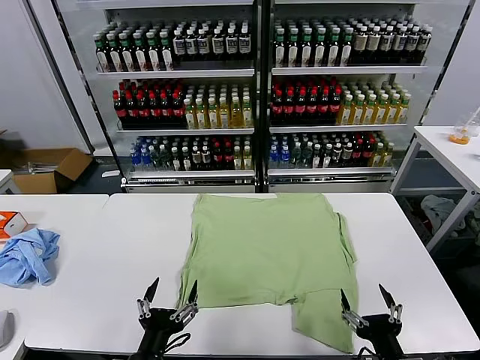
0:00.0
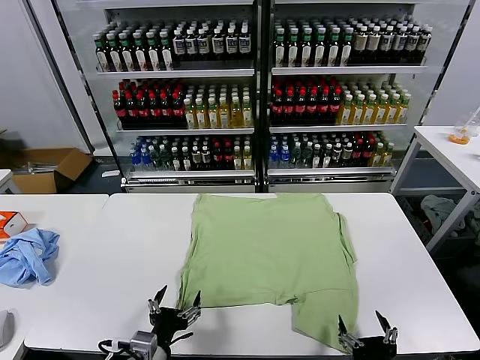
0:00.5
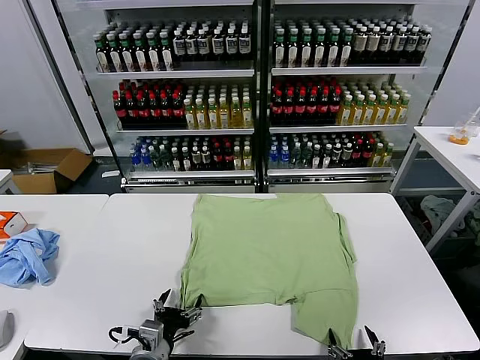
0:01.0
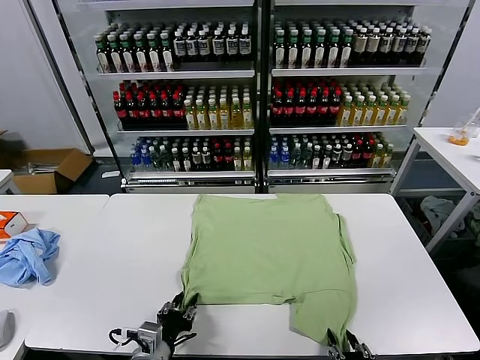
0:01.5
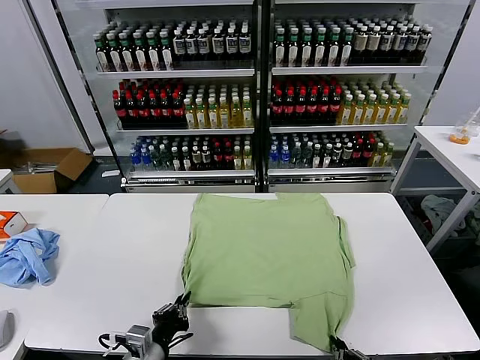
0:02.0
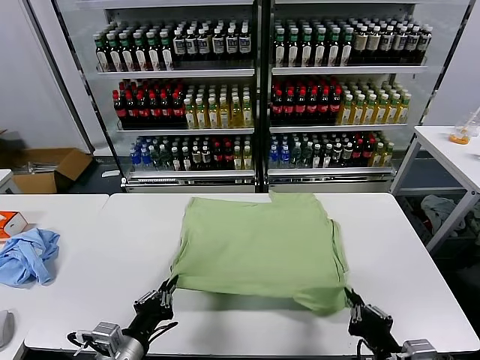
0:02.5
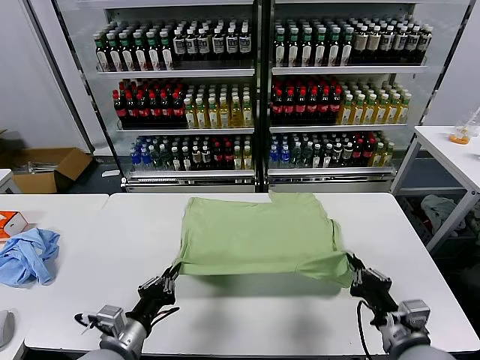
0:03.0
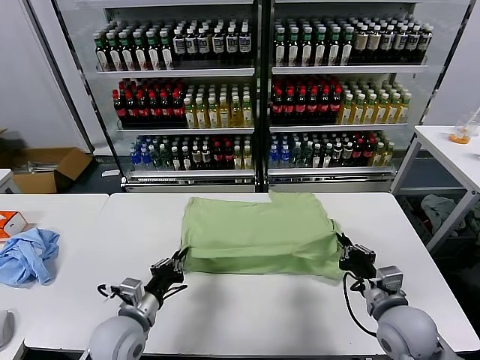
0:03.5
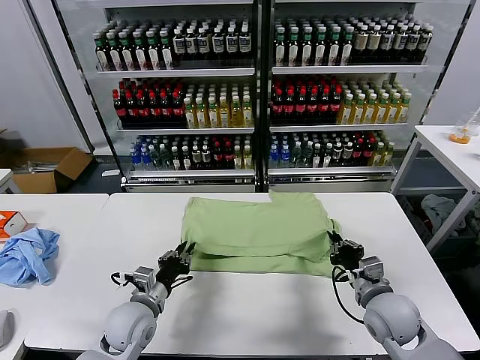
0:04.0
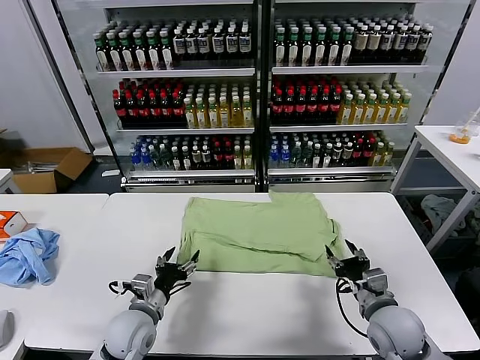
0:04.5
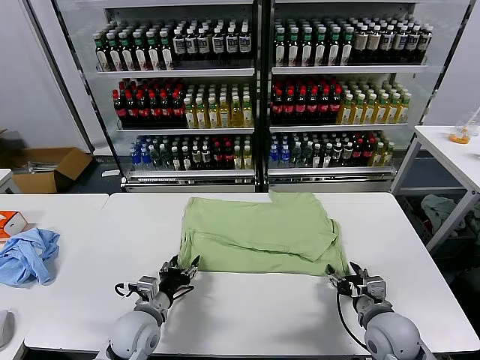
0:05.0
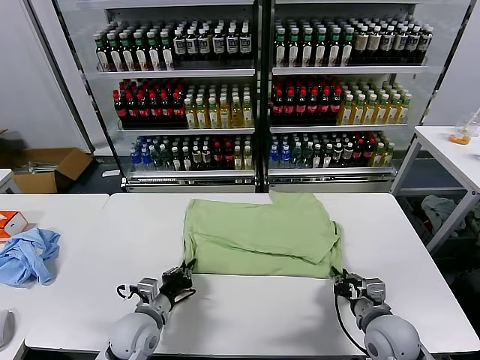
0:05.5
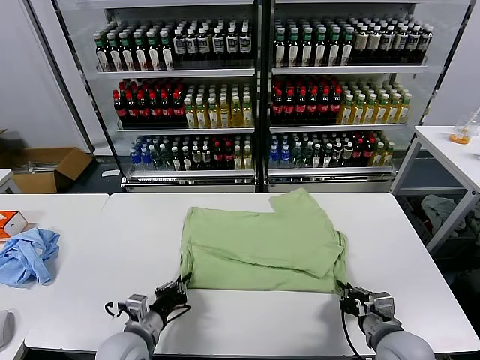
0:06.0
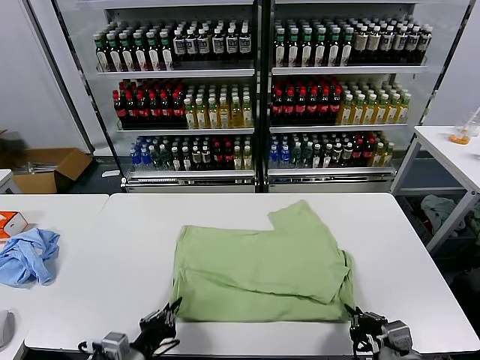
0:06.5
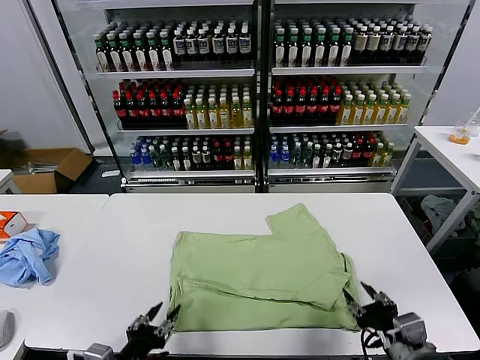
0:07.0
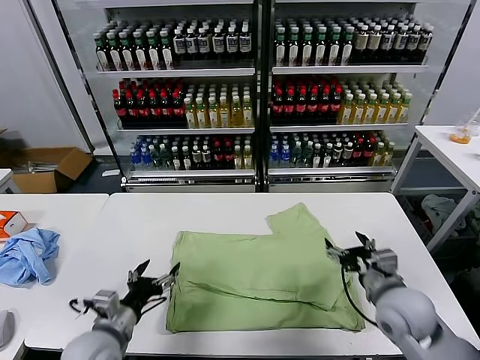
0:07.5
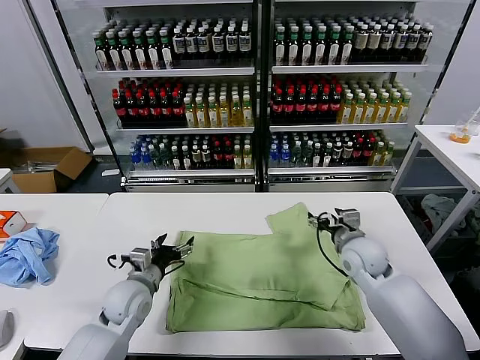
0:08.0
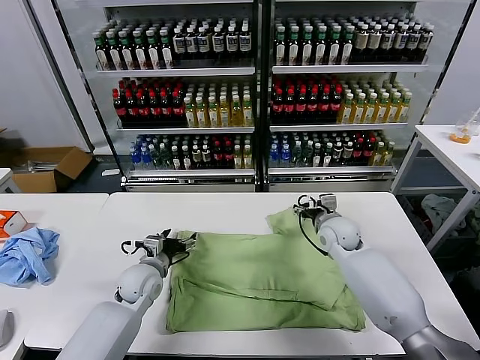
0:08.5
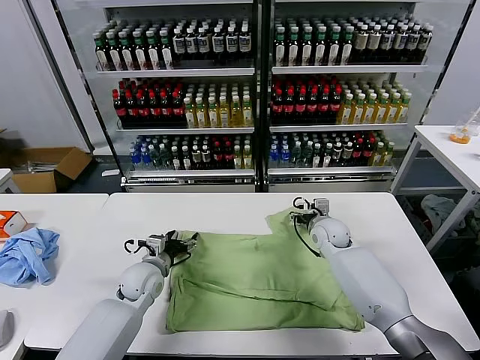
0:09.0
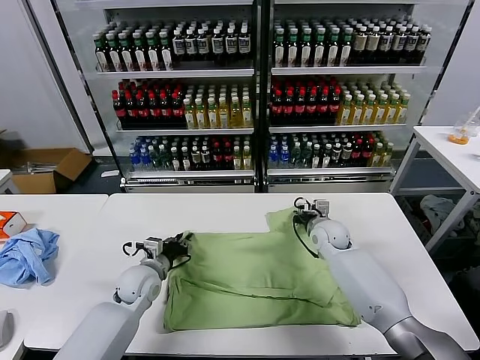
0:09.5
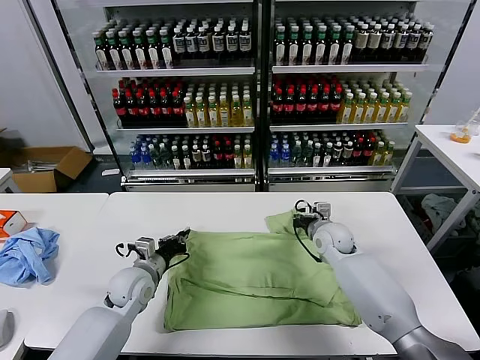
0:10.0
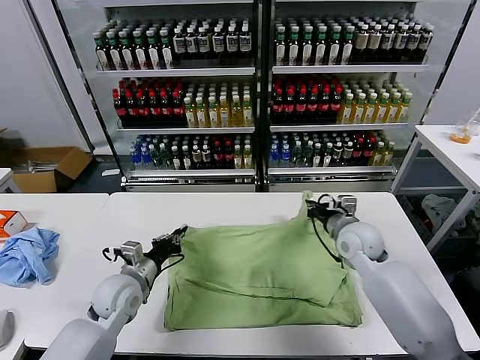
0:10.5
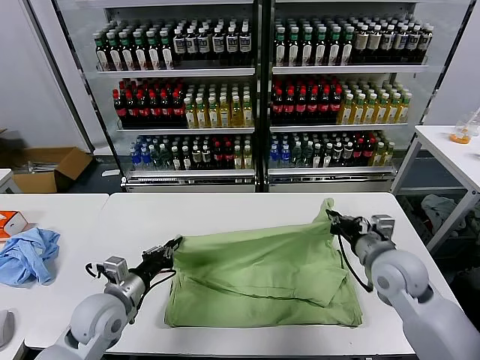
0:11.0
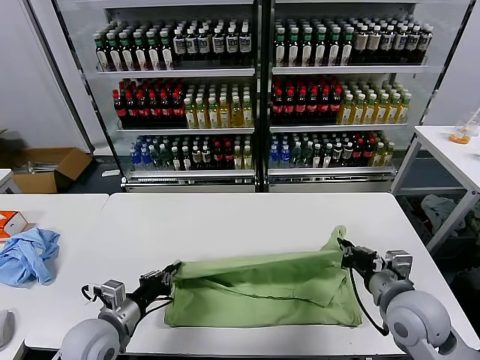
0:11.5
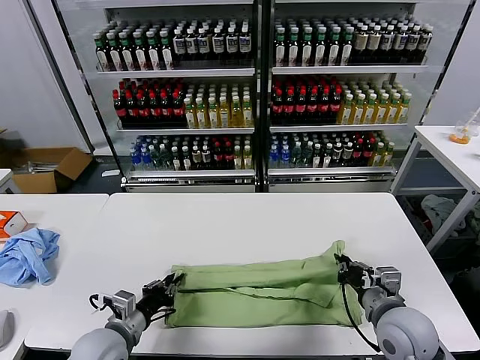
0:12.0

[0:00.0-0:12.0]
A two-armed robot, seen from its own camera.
Task of the whole recording: fold and organize the clothes.
Step, 0:00.0 to 0:01.5: use both grippers simultaneously to clamp the lower edge of the clothing fabric.
Step, 0:02.0 to 0:04.0: use both grippers to drag the lower edge of the fabric forward and fold it over the upper edge.
Step, 0:04.5 to 0:06.5: Drag the clothes downward with both gripper.
Step, 0:07.5 to 0:09.5: use both grippers simultaneously to clamp the upper edge of the clothing fabric.
0:02.0 to 0:04.0: The right gripper shifts approximately 20 cm forward. Meanwhile the left gripper is displaced forward by roughly 15 cm.
0:04.0 to 0:06.0: Both grippers travel together backward, approximately 5 cm. The left gripper opens and closes again. Meanwhile the right gripper opens, then closes once more.
0:06.0 to 0:08.0: The right gripper heads forward, covering roughly 20 cm, and opens its fingers. Meanwhile the left gripper shifts roughly 10 cm forward, and opens.
0:08.0 to 0:10.0: The left gripper closes its fingers. The right gripper goes approximately 10 cm forward, and closes up.
0:10.0 to 0:12.0: The right gripper heads backward, covering approximately 25 cm. Meanwhile the left gripper heads backward, covering approximately 15 cm.

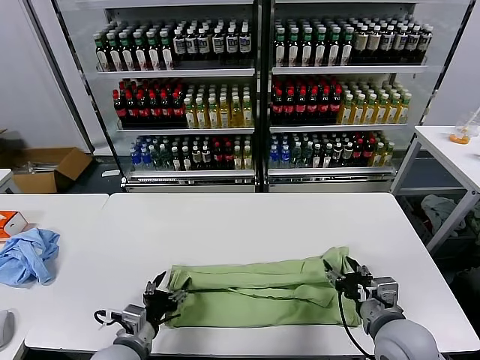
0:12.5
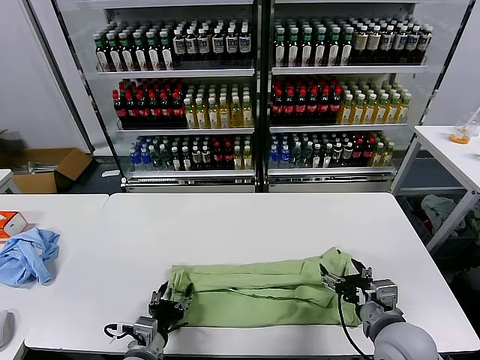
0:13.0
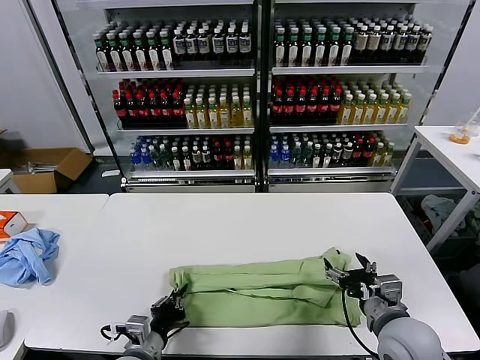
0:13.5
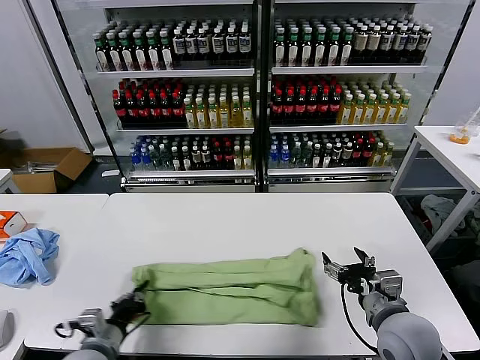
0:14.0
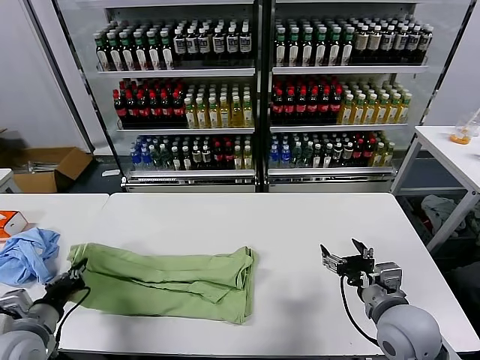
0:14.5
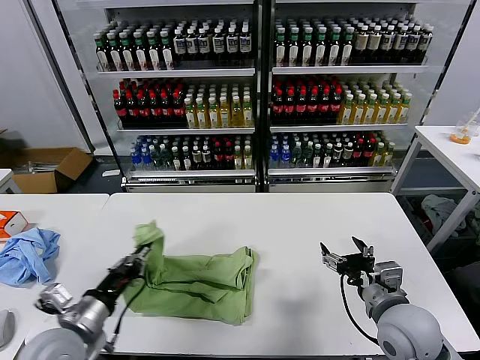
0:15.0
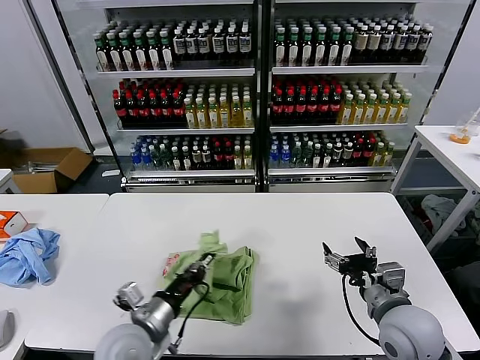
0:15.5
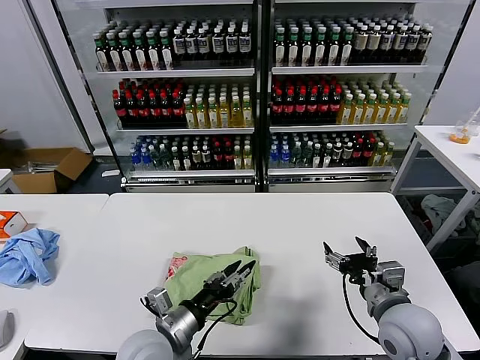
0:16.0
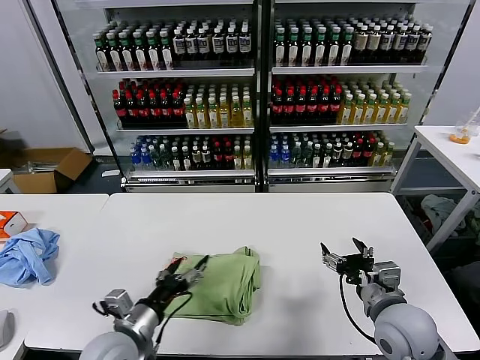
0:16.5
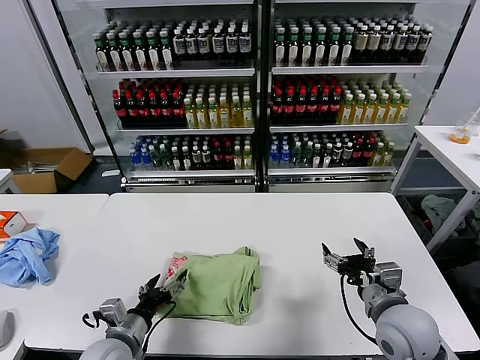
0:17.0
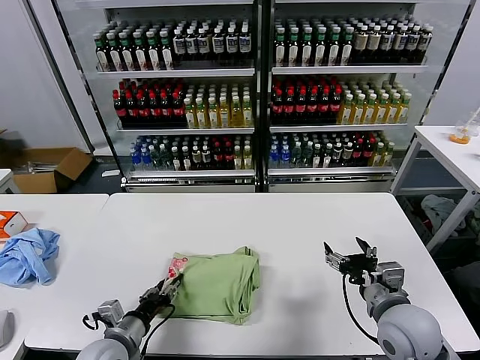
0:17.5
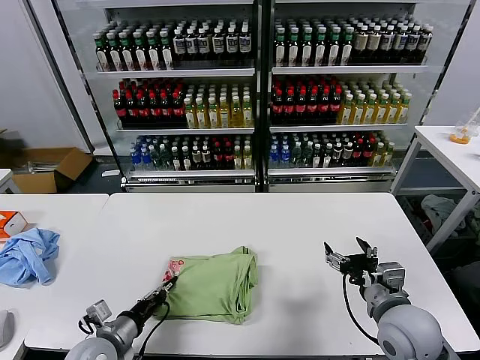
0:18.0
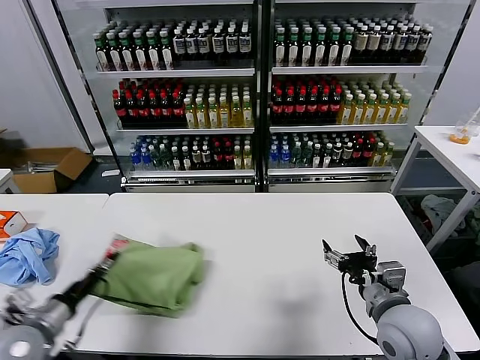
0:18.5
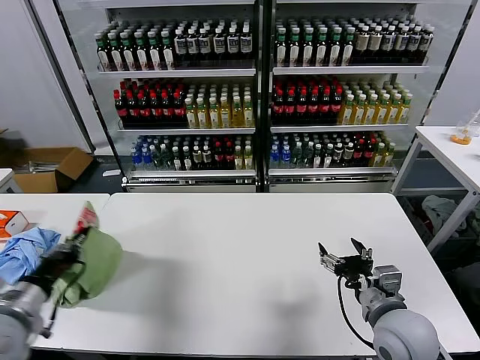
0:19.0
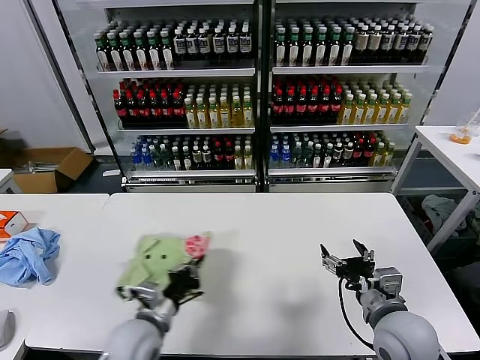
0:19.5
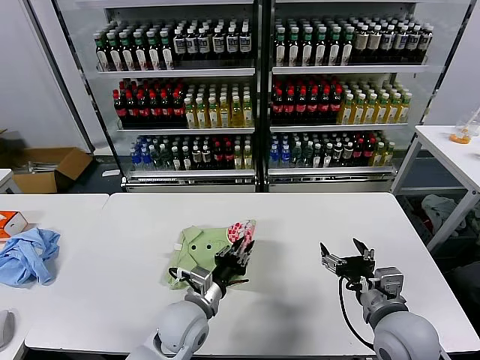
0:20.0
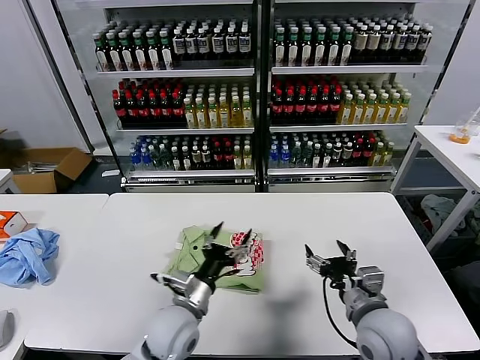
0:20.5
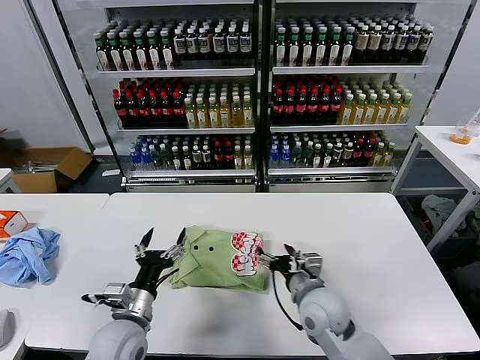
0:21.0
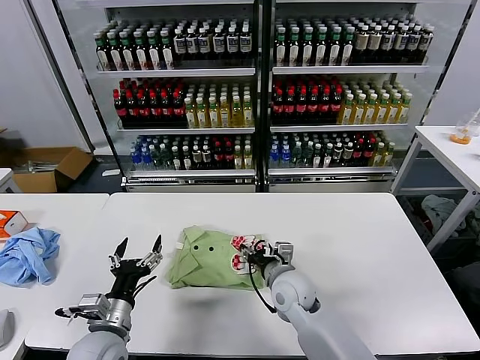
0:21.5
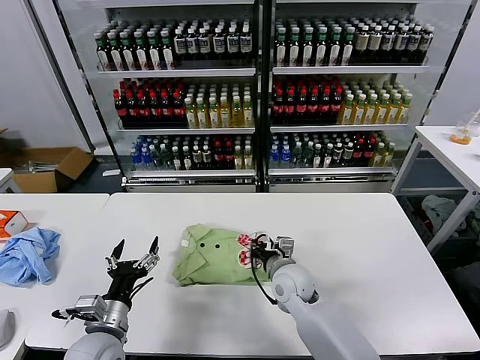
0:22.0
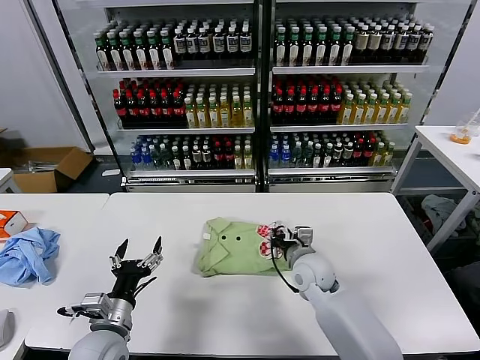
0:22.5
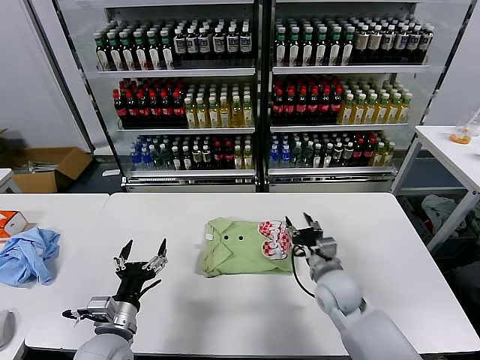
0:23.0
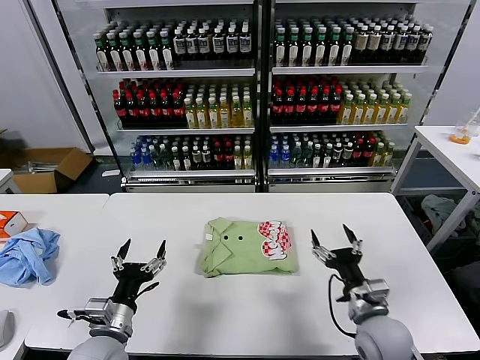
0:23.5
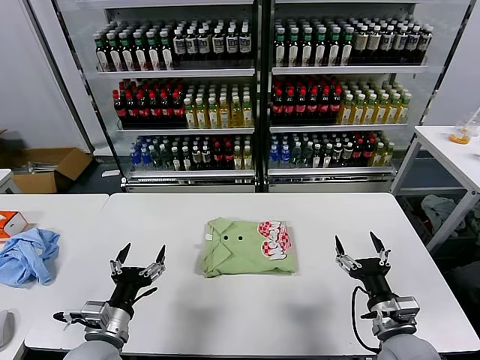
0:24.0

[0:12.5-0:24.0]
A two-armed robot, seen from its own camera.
Task of the whole recording: fold and organize the clothes.
Step, 0:12.5 to 0:13.0: use the left gripper to clamp the left edge of the fabric.
Step, 0:13.5 to 0:15.5: use the left gripper to drag the left edge of the fabric to the left and folds it over the right edge.
Step, 0:16.5 to 0:20.0: Flip the folded clothes over with left gripper.
Step, 0:20.5 to 0:22.5: Drag the clothes to the center of the table.
0:12.5 to 0:14.5: The left gripper is displaced to the left by roughly 15 cm, and closes up.
0:14.5 to 0:16.5: The left gripper travels to the right by roughly 20 cm, and opens.
0:16.5 to 0:18.5: The left gripper shifts about 15 cm to the left, and closes.
0:18.5 to 0:20.0: The left gripper travels to the right by about 25 cm.
0:20.0 to 0:22.0: The left gripper moves to the left and backward, roughly 15 cm, and opens its fingers. Meanwhile the right gripper heads to the left, forward and downward, covering about 25 cm, and closes up.
0:22.0 to 0:24.0: The right gripper shifts approximately 25 cm to the right and backward, and opens.
